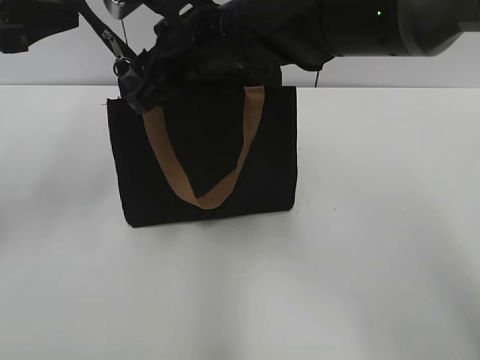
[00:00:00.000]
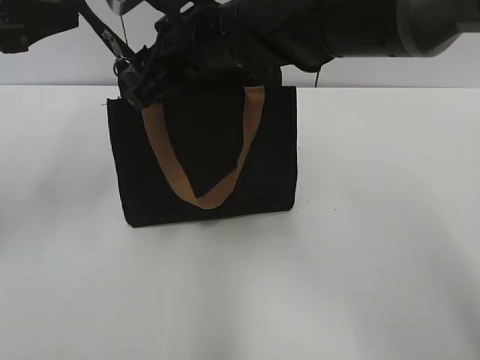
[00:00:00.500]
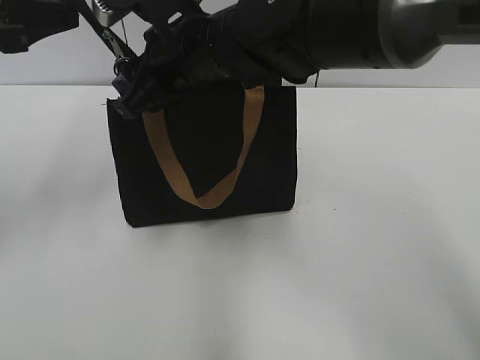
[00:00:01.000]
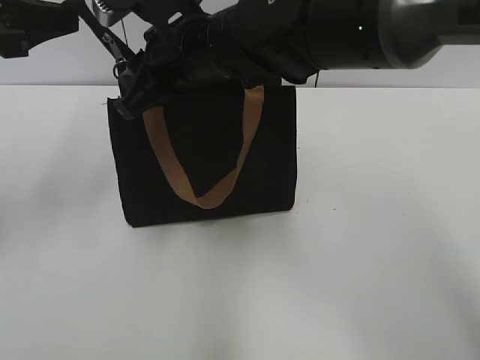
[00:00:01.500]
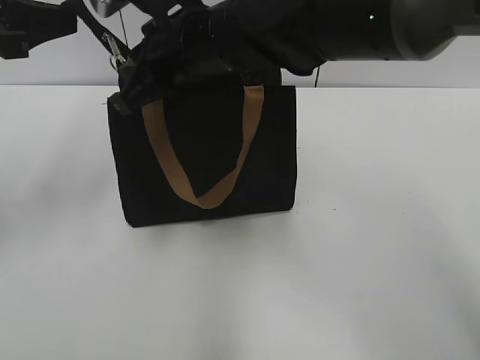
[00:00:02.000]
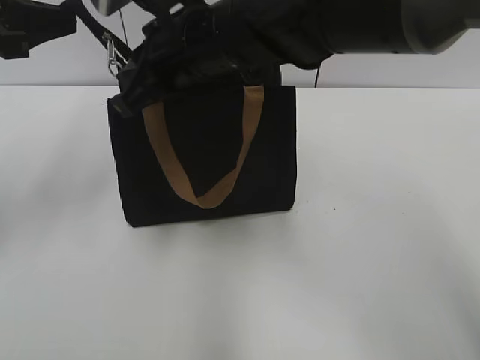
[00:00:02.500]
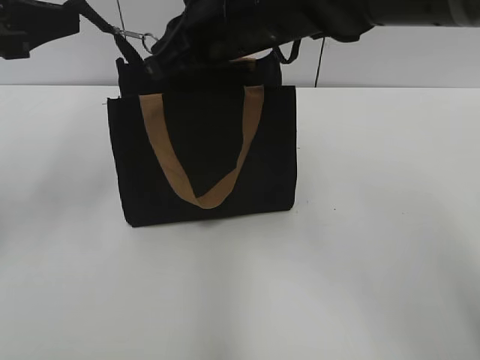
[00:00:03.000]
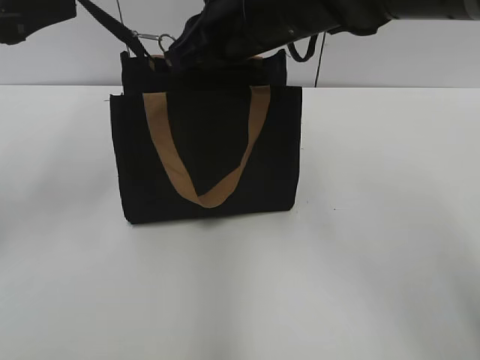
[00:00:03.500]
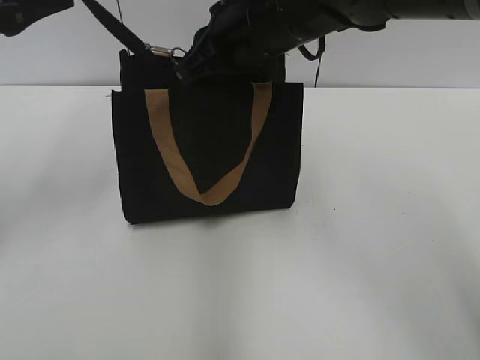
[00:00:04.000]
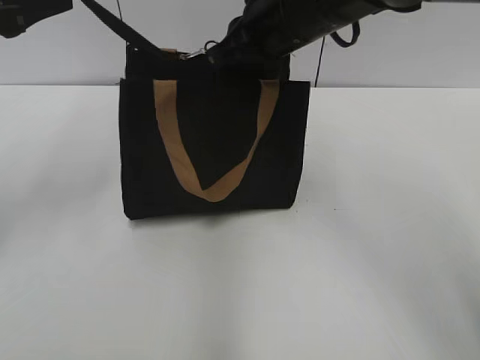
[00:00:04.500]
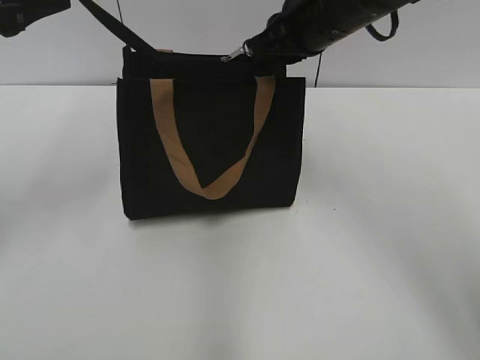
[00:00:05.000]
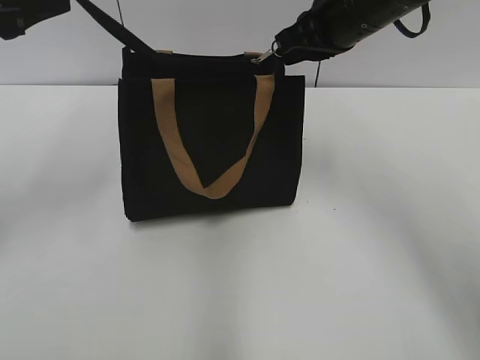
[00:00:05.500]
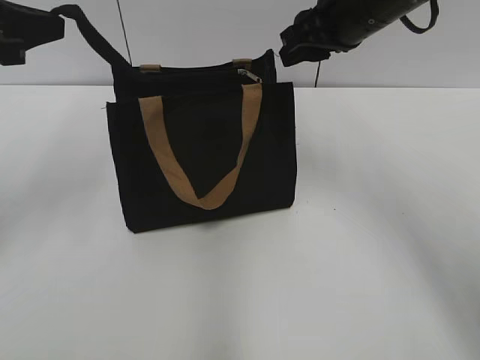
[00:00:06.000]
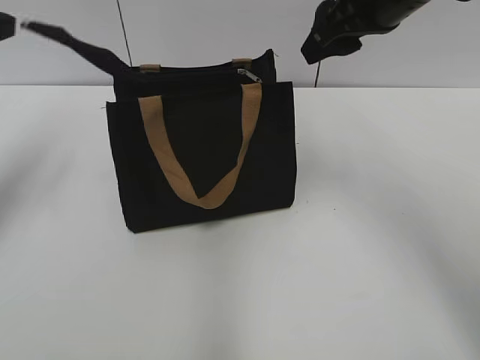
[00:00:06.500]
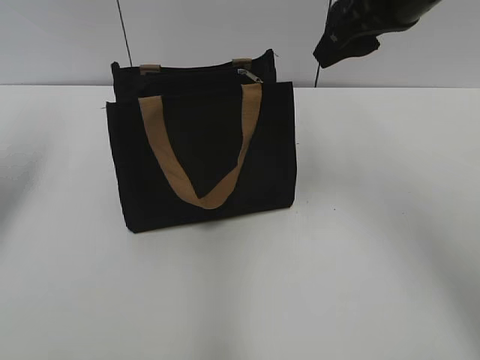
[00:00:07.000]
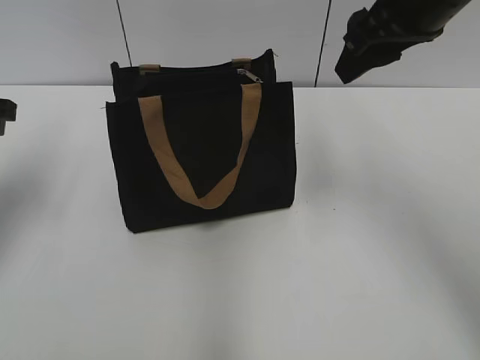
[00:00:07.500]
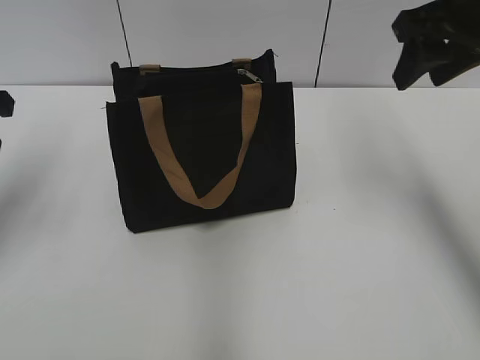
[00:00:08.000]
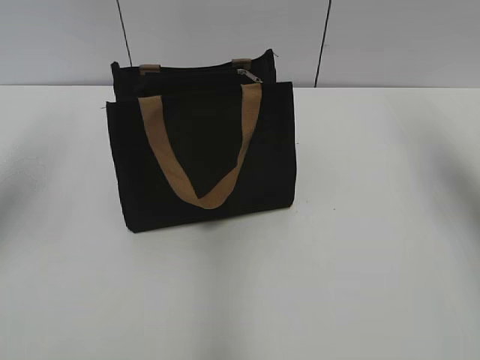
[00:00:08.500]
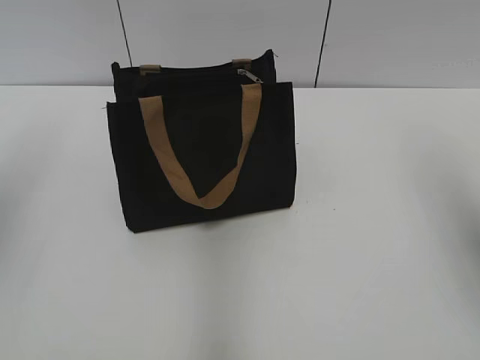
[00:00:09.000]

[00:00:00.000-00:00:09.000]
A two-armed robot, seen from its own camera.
Step, 00:00:00.000 to 00:00:05.500: Zip up the bag with your right hand.
Step, 00:00:06.000 to 00:00:06.500: Grab the zipper with your left hand.
00:00:00.000 to 00:00:02.000: The right gripper closes.
00:00:02.000 to 00:00:04.500: The right gripper moves to the right, some 10 cm.
00:00:04.500 to 00:00:07.000: The right gripper is displaced to the right and upward by some 10 cm, and opens up. Meanwhile the left gripper travels to the left by some 5 cm, and opens.
00:00:07.000 to 00:00:09.000: The left gripper goes approximately 10 cm backward and upward. Meanwhile the right gripper shifts some 20 cm to the right and backward.
